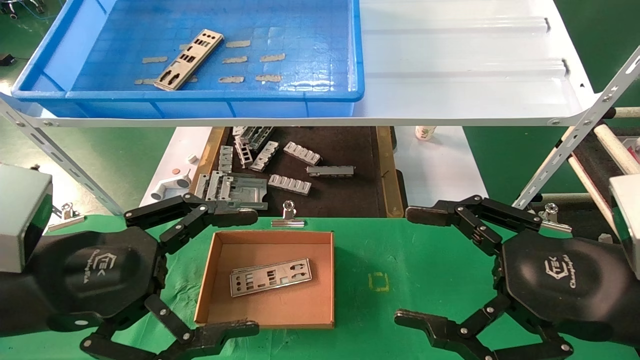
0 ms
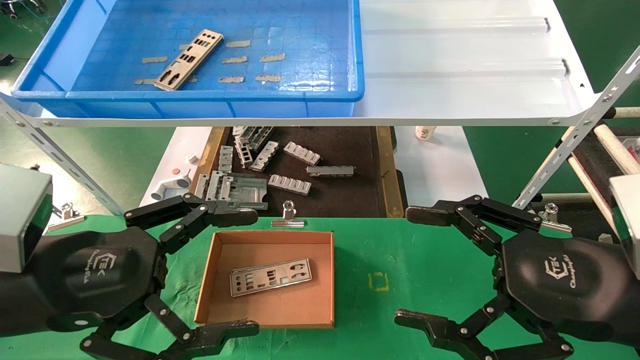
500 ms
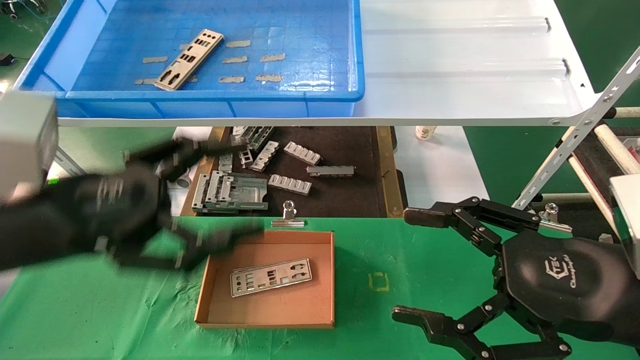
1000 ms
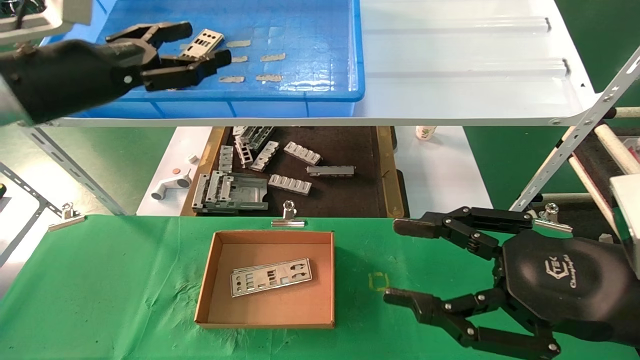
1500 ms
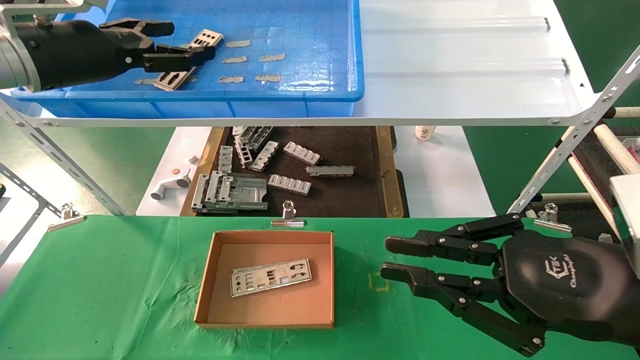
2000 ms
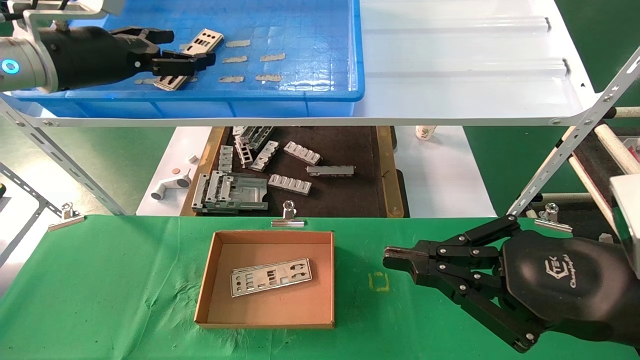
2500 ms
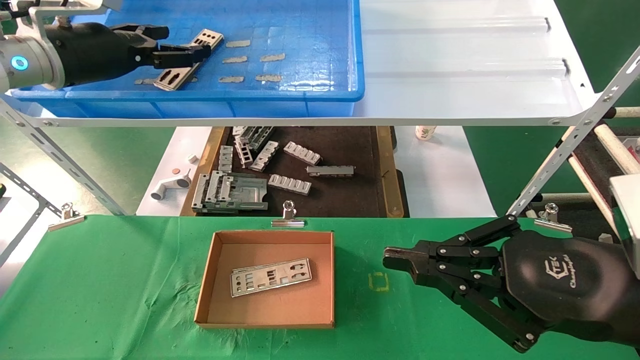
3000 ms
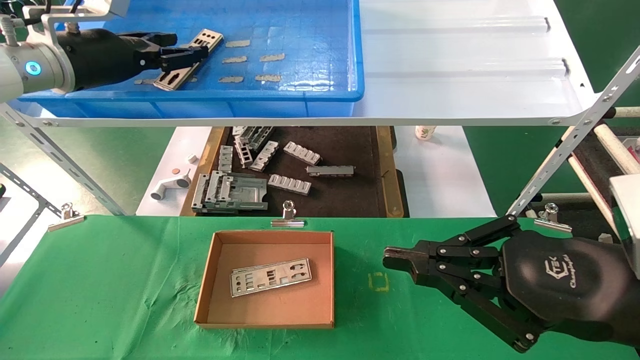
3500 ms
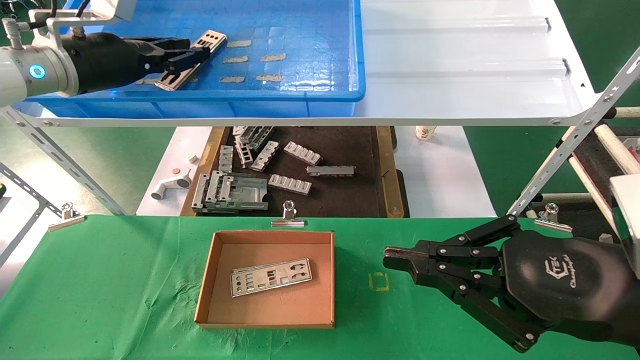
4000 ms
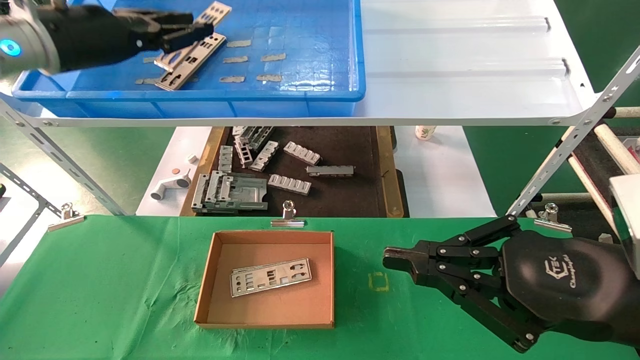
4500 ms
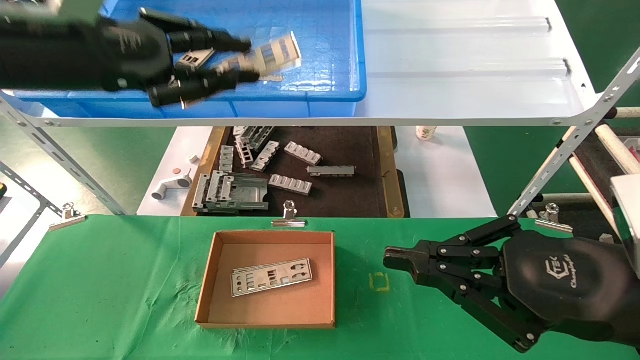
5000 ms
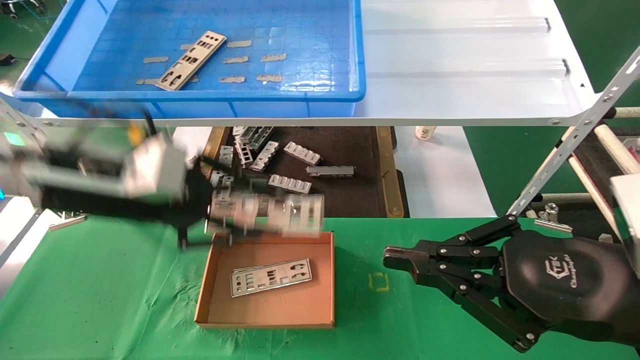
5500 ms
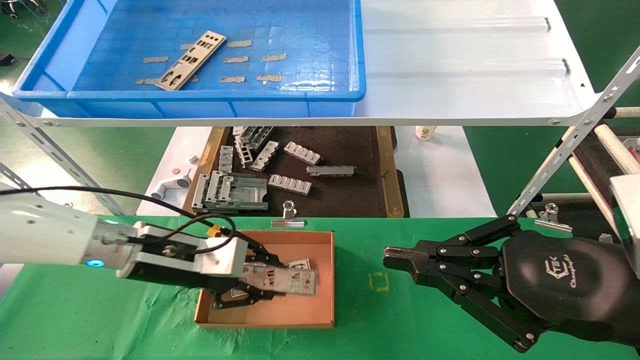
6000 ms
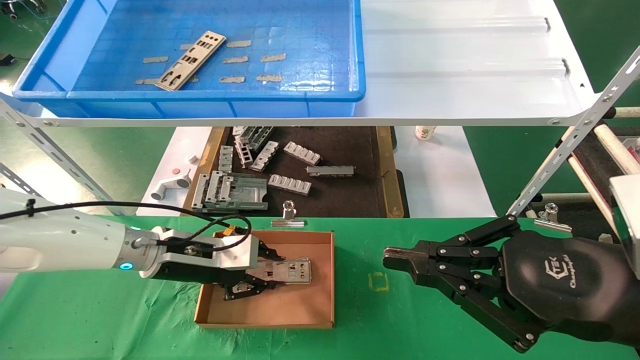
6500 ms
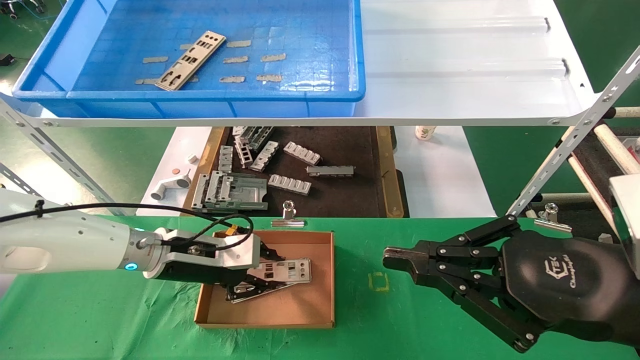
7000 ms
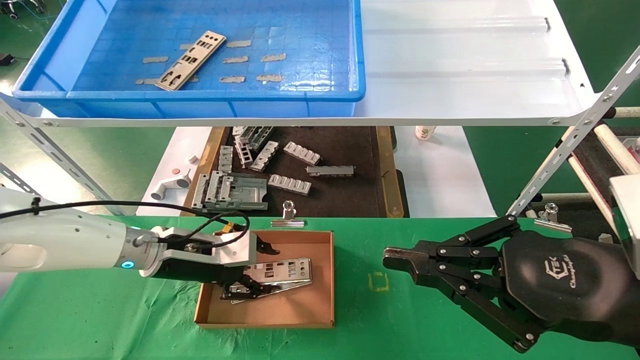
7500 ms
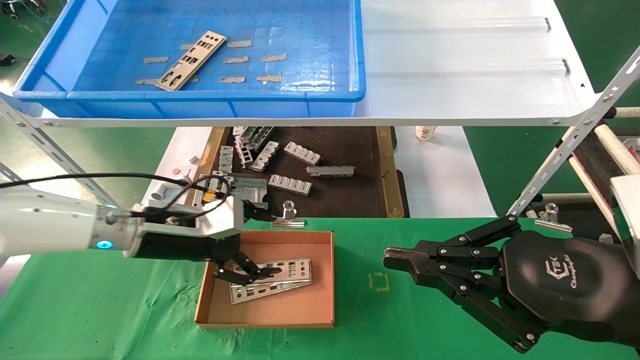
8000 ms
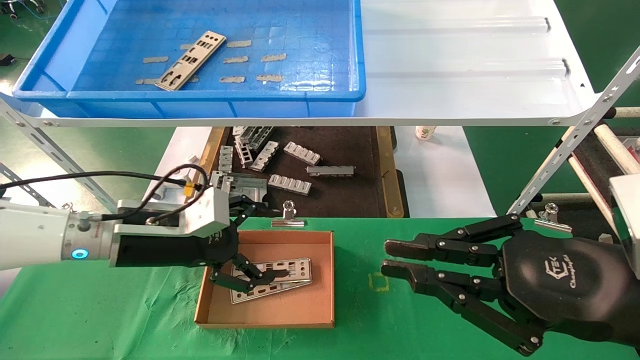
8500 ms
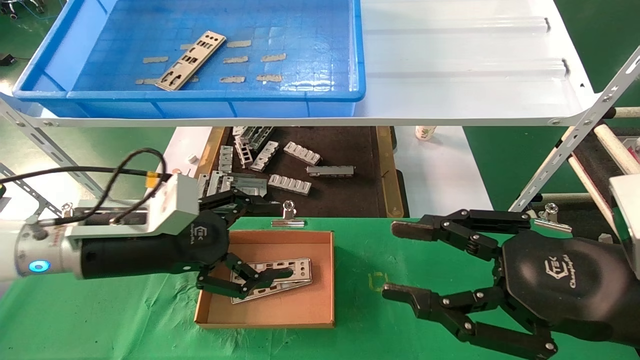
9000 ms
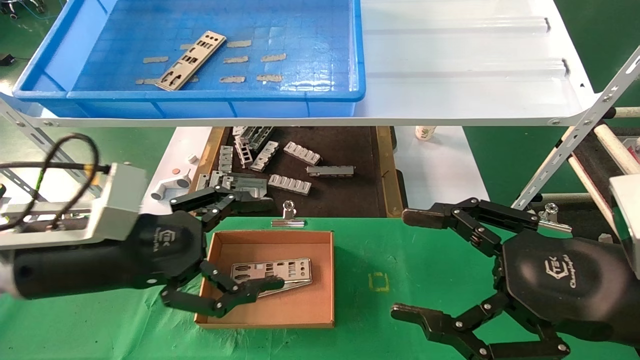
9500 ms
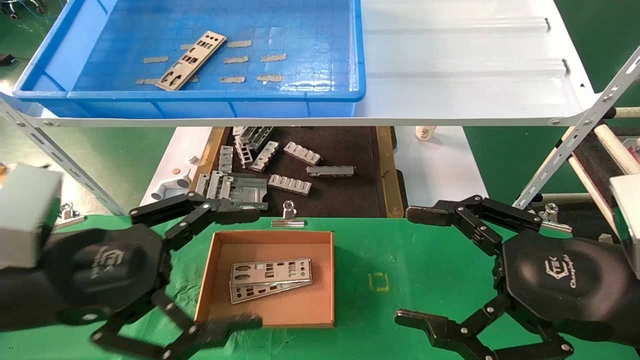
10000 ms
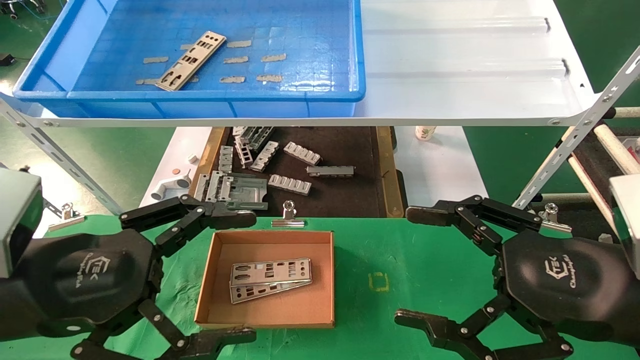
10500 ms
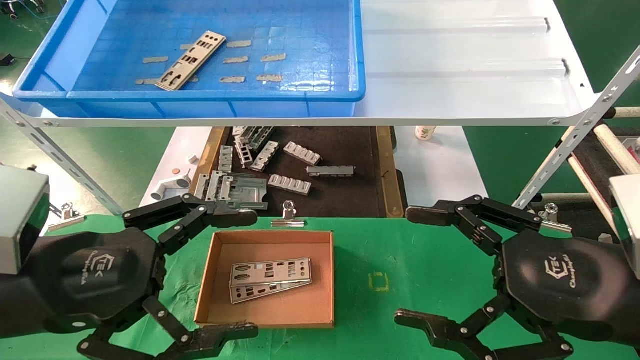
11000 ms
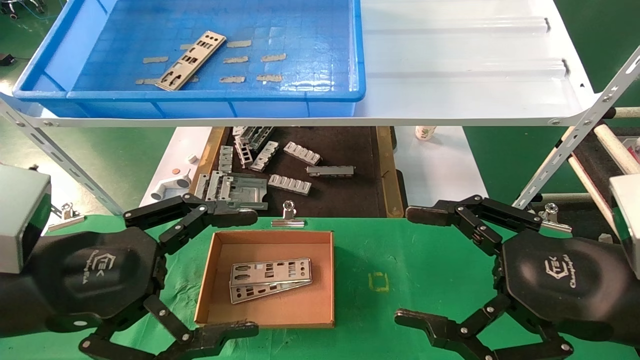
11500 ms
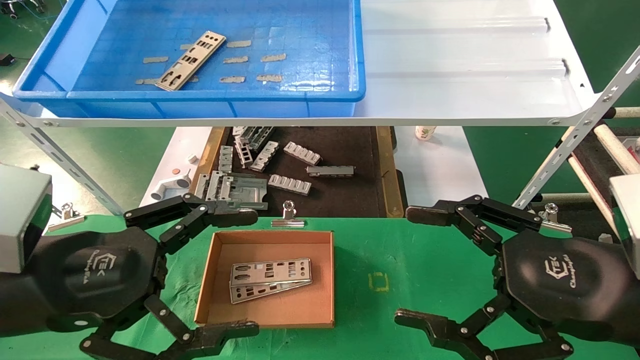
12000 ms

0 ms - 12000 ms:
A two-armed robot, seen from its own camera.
Task of the whole recording: pick up the parts on the tray and put them in the cardboard box.
Step, 1500 ms - 4500 ms: Pick up the IO bracket from the container box.
Step, 5000 ms - 7000 ms: Place the IO bracket into the ingredient slot.
0 ms - 2000 ms: The right gripper closes, while the left gripper is displaced forward and upward by some 25 cm.
2000 ms - 4000 ms: The left gripper closes.
4000 ms - 6000 ms: The left gripper moves downward and to the right, approximately 25 cm.
6000 ms - 8000 ms: The left gripper opens up.
8000 ms - 10000 ms: The right gripper opens up, while the left gripper heads backward, covering some 20 cm.
10000 ms - 12000 ms: Both grippers stay put.

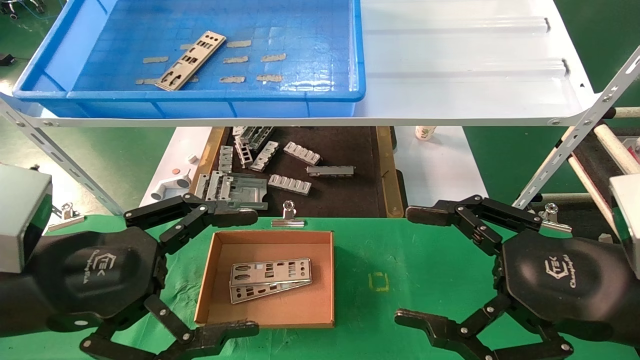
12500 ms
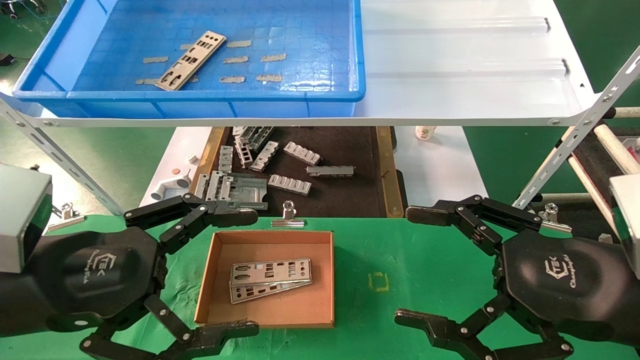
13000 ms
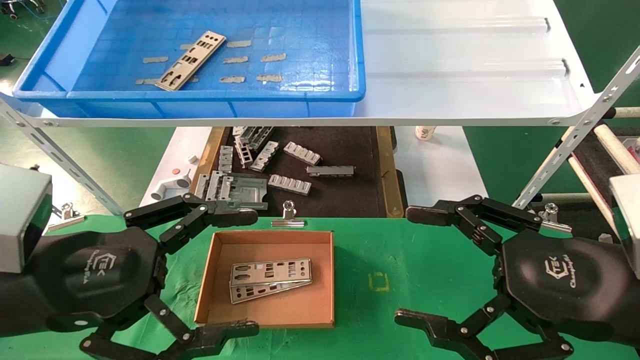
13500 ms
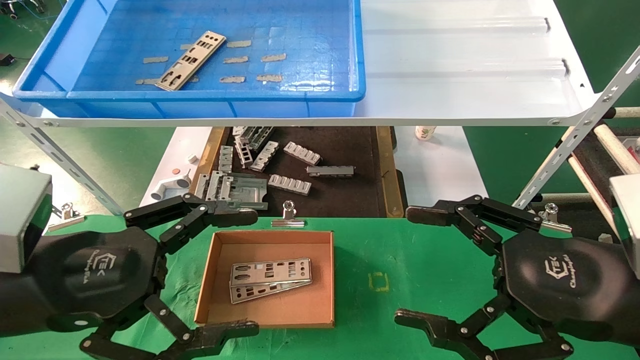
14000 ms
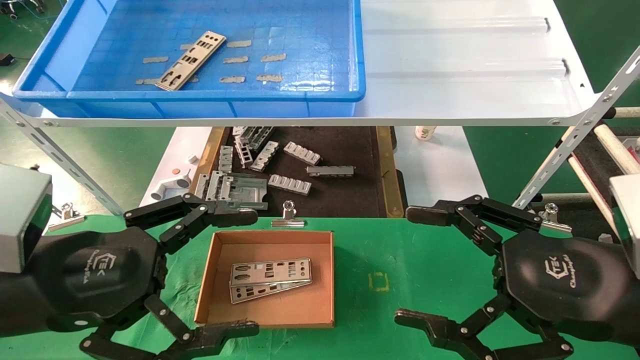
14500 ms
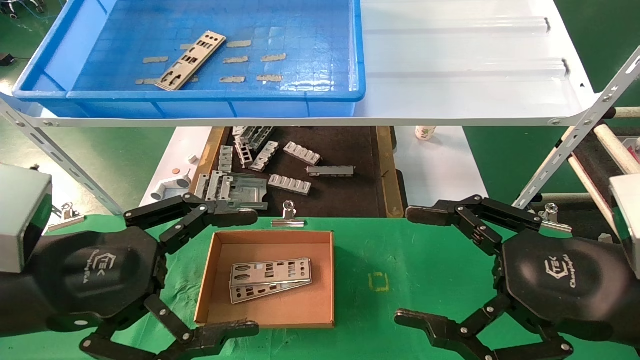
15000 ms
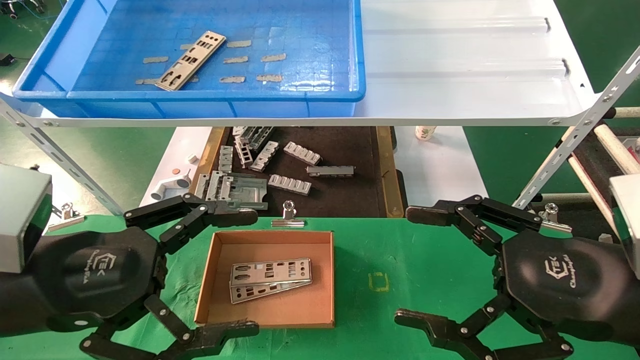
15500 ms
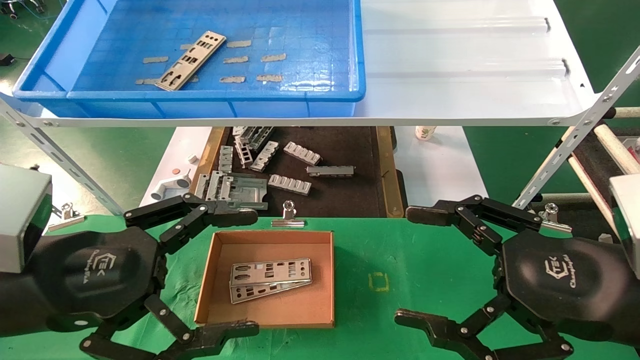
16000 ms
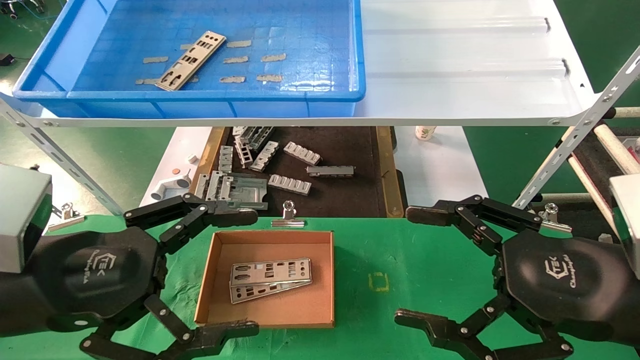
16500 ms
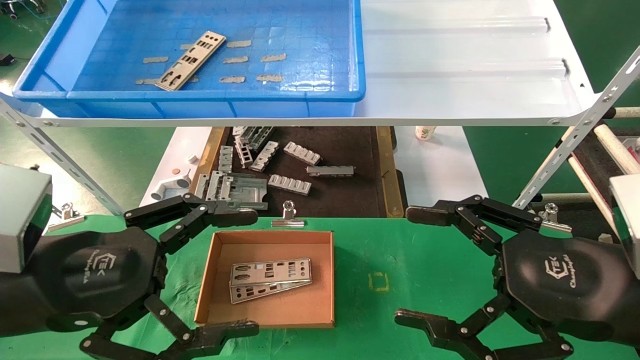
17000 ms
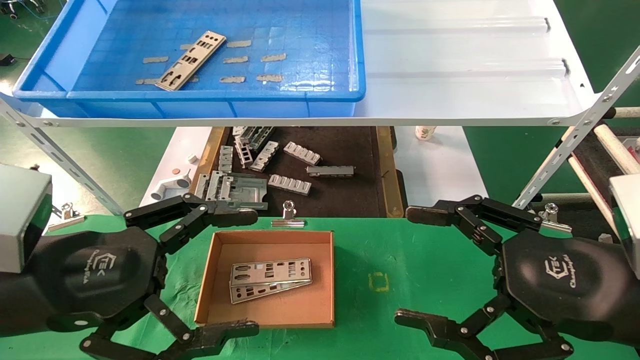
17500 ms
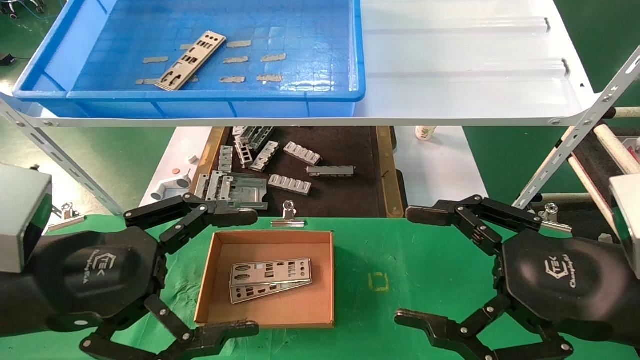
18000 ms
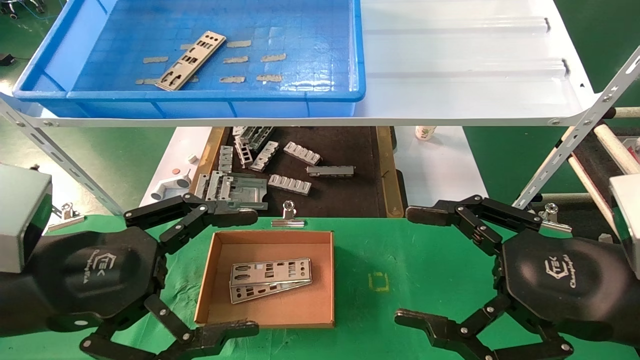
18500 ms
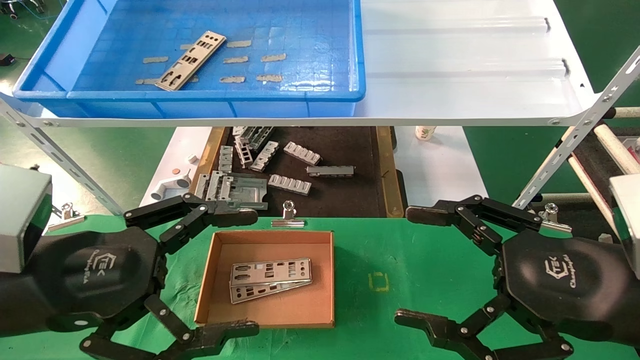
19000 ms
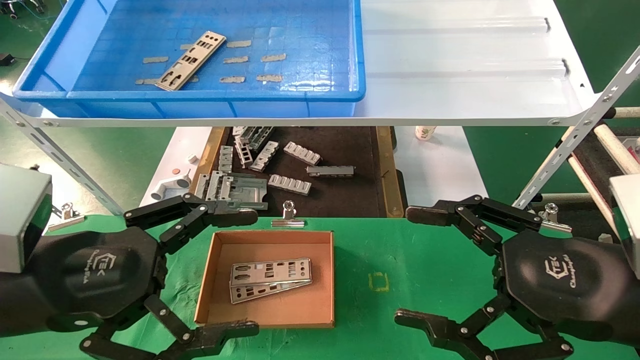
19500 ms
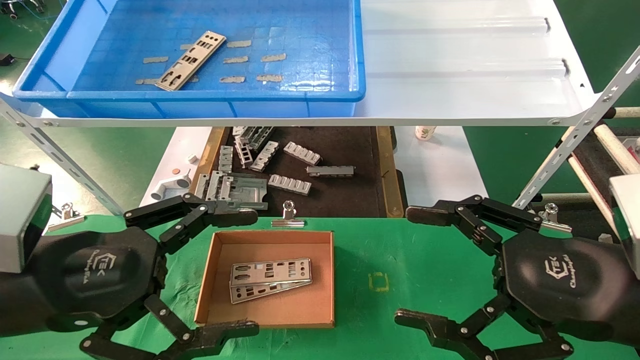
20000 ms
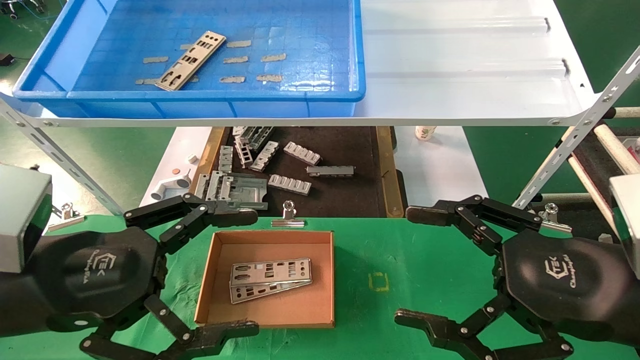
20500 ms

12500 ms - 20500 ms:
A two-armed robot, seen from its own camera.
Task of the whole recording: pick up the parts on the tray and put them in the cardboard box.
12500 ms - 20500 ms: The two grippers keep their place.
